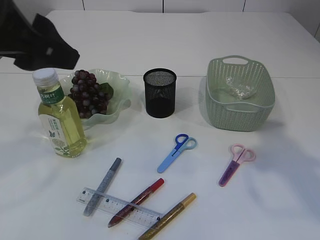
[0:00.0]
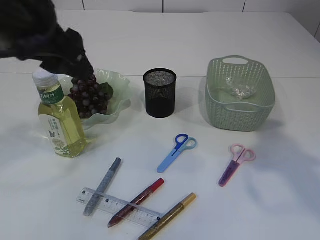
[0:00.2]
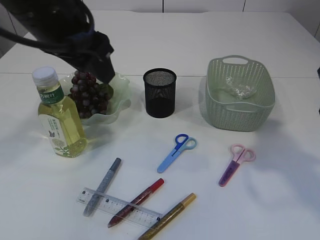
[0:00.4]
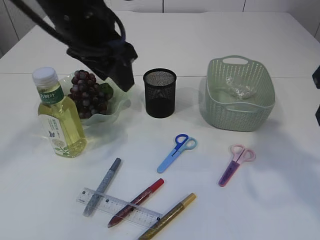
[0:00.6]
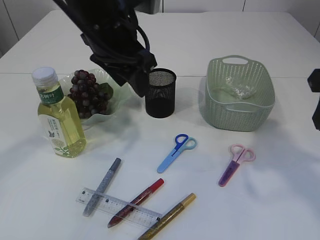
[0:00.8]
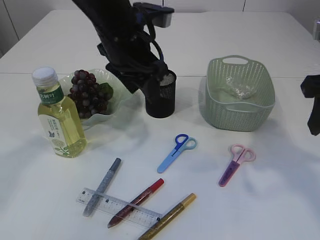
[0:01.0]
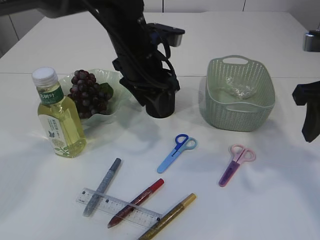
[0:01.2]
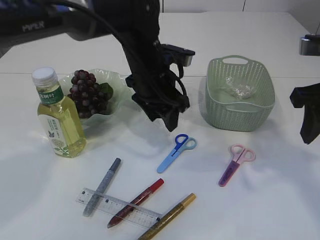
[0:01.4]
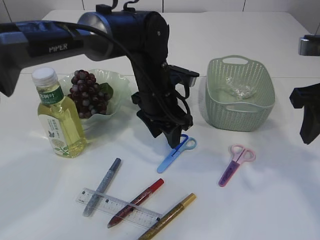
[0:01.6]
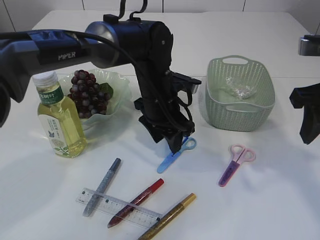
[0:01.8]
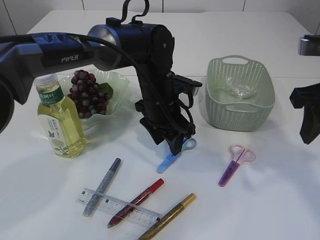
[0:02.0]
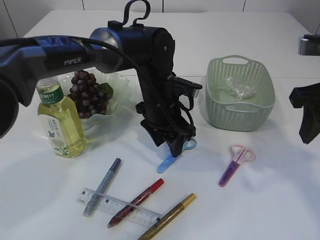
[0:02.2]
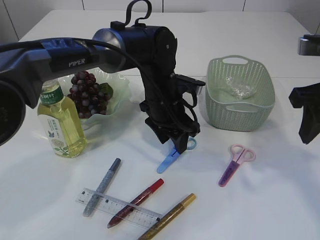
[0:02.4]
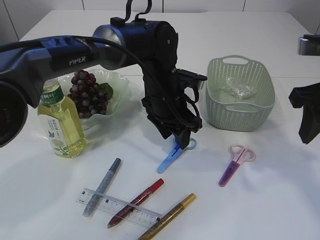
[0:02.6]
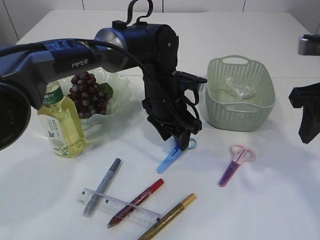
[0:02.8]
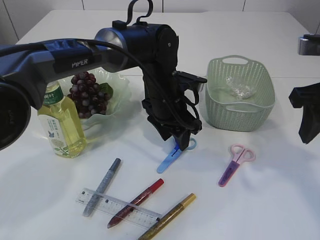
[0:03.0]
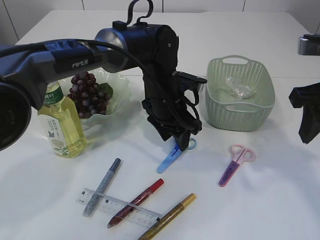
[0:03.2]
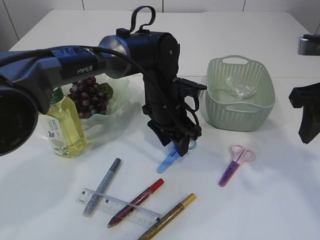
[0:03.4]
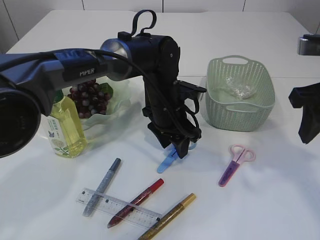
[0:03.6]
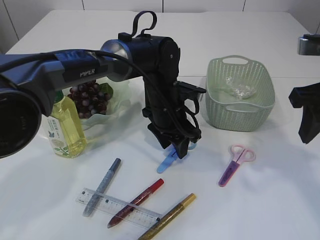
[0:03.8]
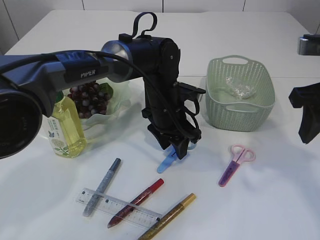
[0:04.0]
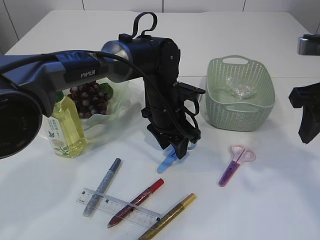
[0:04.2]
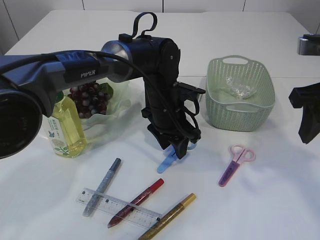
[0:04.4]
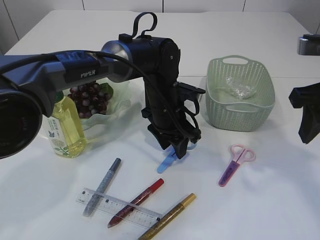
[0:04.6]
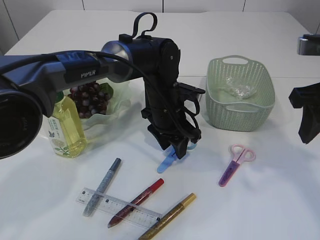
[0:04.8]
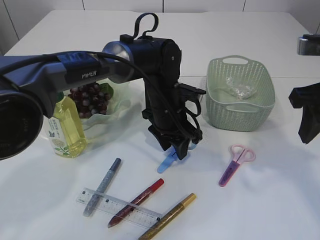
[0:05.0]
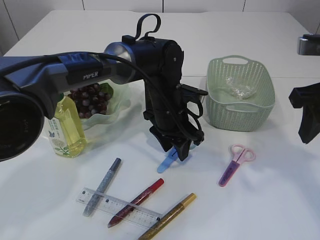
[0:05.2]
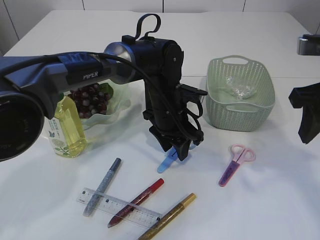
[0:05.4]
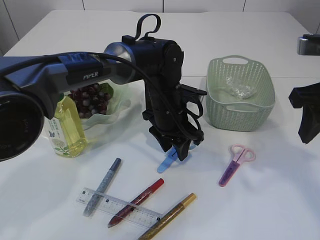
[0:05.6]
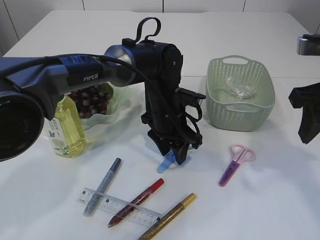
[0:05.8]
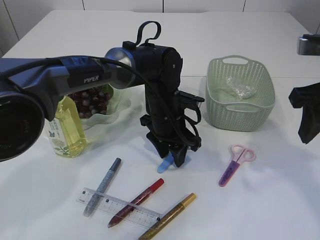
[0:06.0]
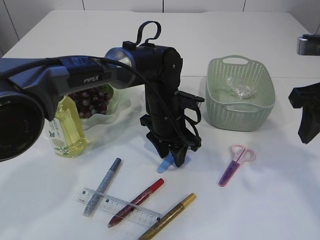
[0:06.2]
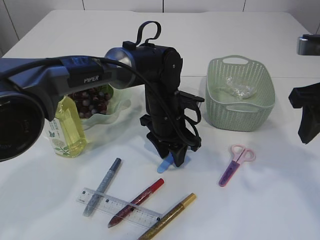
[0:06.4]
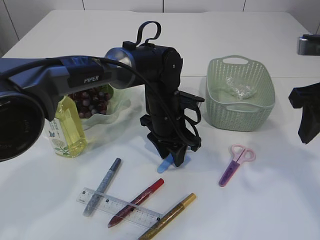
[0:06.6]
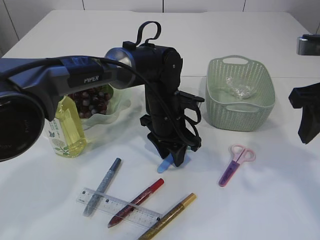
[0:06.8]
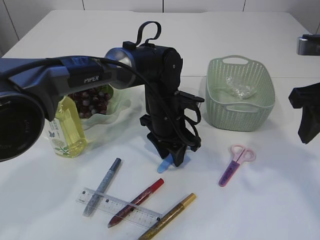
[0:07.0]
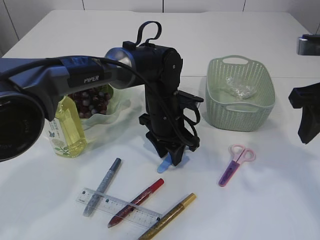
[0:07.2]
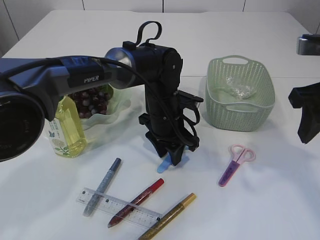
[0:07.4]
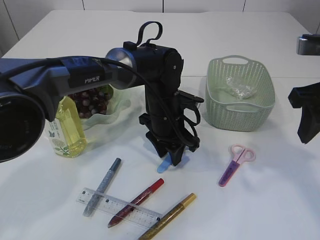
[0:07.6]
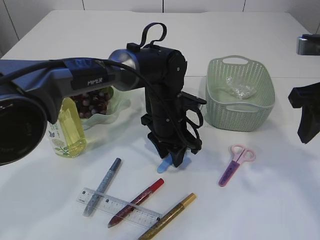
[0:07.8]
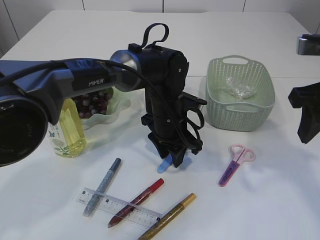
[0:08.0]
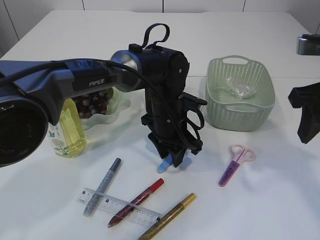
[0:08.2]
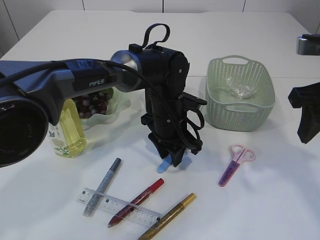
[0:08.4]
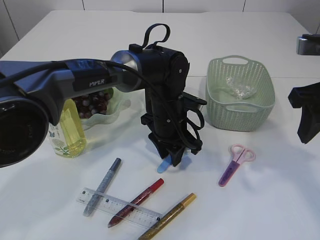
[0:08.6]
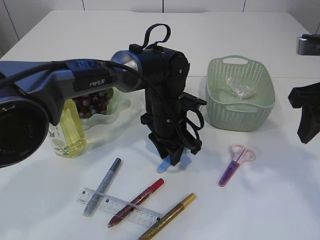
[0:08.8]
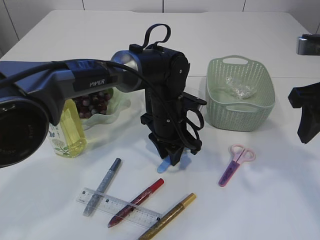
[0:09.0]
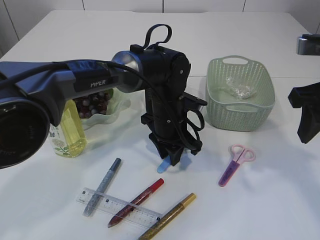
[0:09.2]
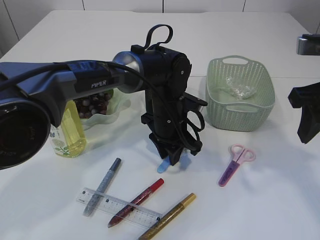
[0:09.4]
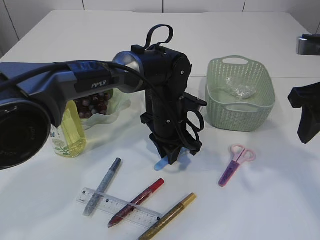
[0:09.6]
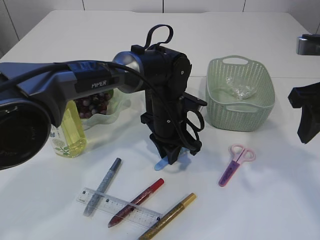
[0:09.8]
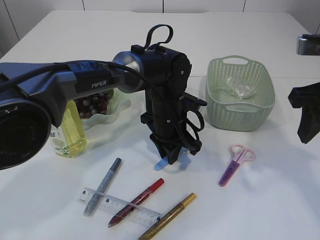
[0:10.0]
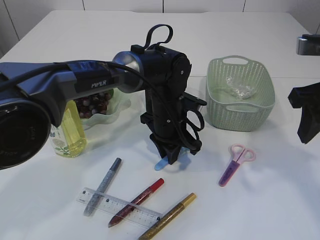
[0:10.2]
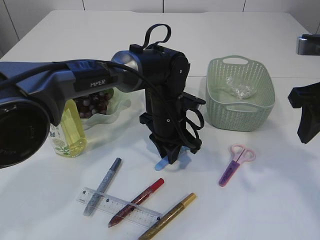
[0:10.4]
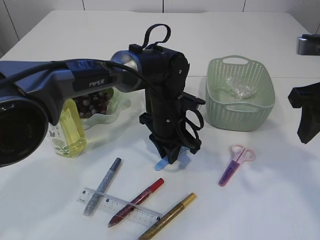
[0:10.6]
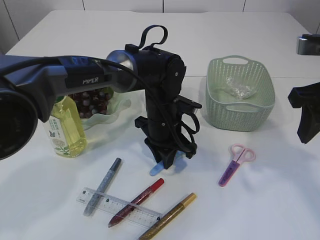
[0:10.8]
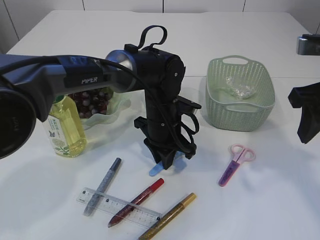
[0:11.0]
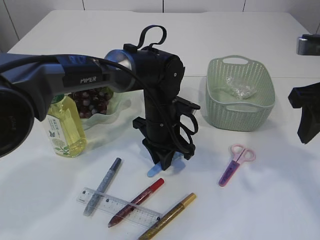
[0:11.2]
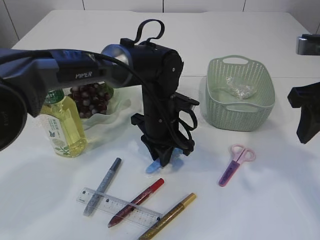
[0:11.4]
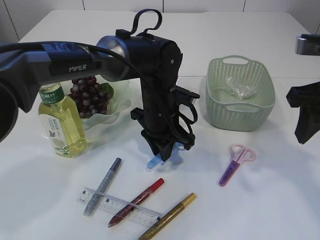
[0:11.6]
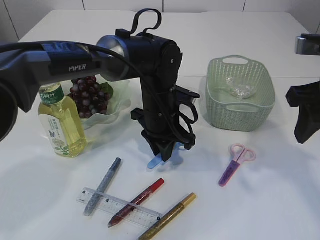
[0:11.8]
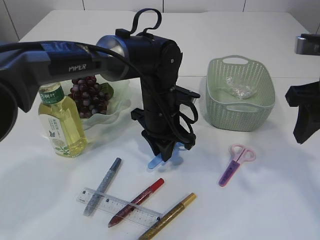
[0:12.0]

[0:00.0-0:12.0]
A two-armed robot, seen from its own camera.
0:00.0 to 0:01.6: The right gripper goes some 5 cm downward; the left gripper moves downward, to the right and forward, roughly 30 cm.
0:01.6 to 0:04.4: There are only small adjustments of the grippers.
0:04.4 to 0:06.0: There are only small adjustments of the grippers.
0:06.0 to 0:07.6: Neither gripper changes place.
0:07.6 to 0:09.0: Both grippers stay put.
0:09.0 to 0:10.4: Both grippers stay about where they are.
0:10.4 to 0:12.0: The grippers make only small movements.

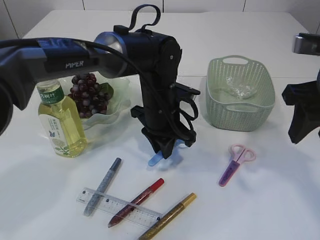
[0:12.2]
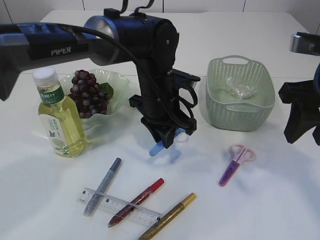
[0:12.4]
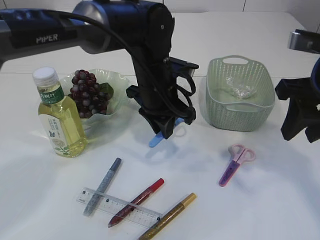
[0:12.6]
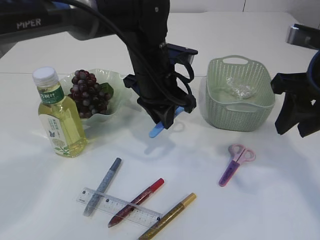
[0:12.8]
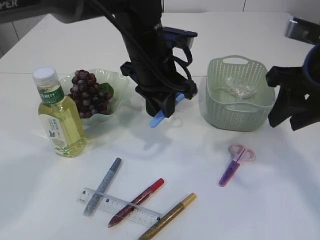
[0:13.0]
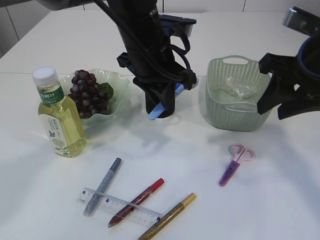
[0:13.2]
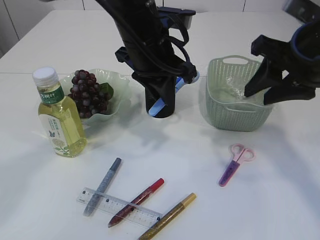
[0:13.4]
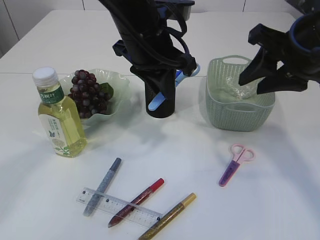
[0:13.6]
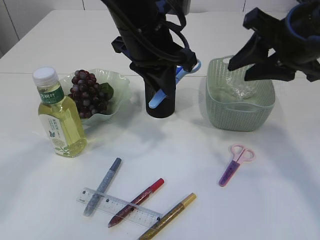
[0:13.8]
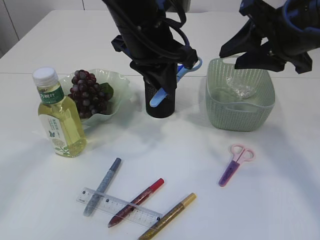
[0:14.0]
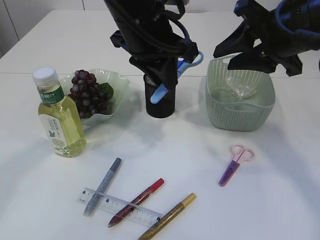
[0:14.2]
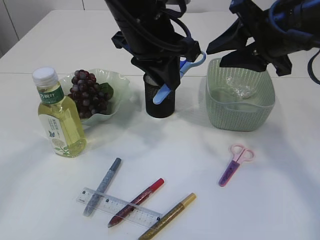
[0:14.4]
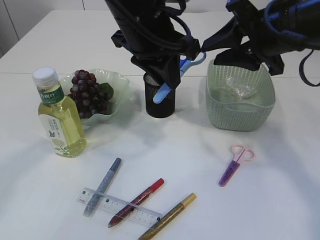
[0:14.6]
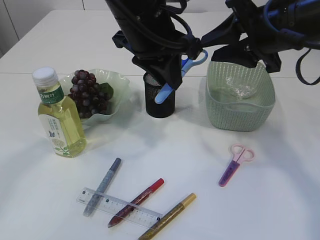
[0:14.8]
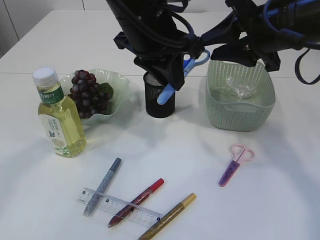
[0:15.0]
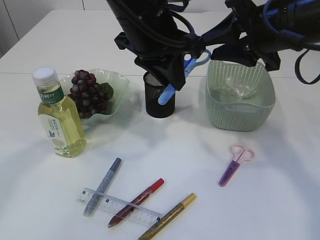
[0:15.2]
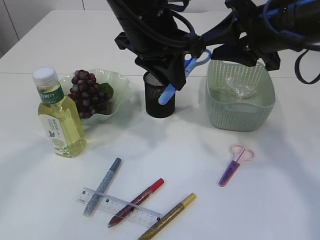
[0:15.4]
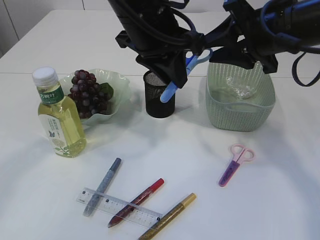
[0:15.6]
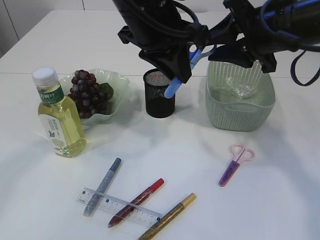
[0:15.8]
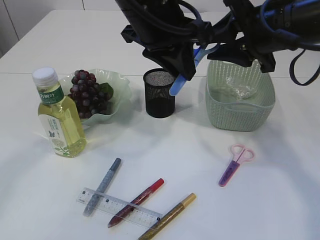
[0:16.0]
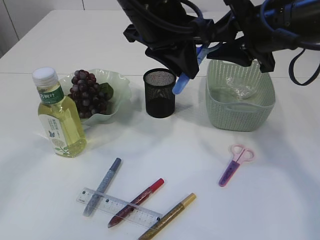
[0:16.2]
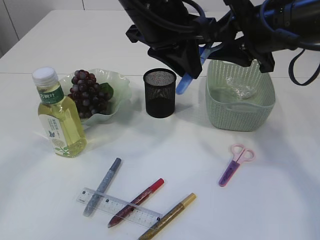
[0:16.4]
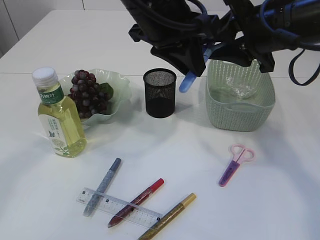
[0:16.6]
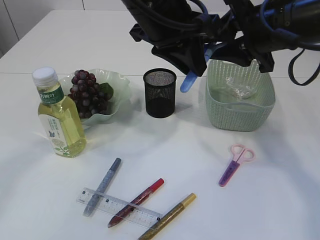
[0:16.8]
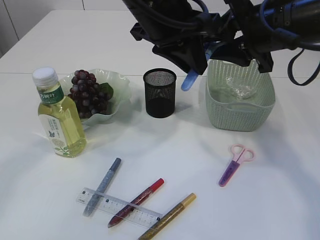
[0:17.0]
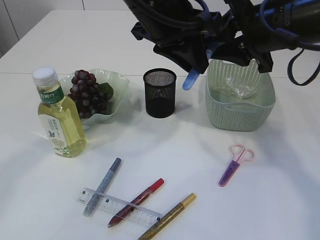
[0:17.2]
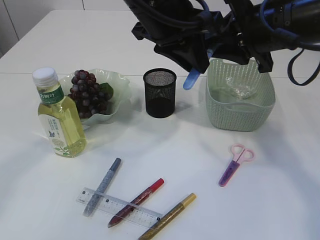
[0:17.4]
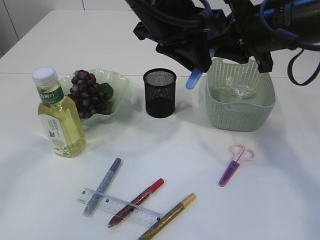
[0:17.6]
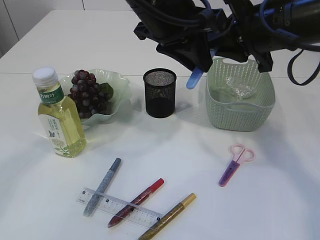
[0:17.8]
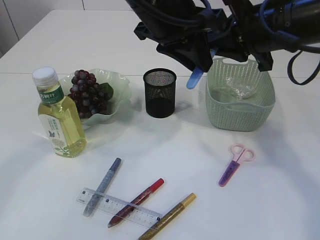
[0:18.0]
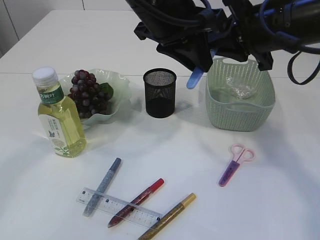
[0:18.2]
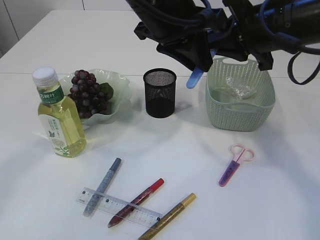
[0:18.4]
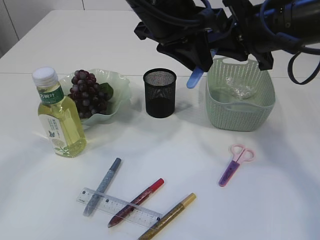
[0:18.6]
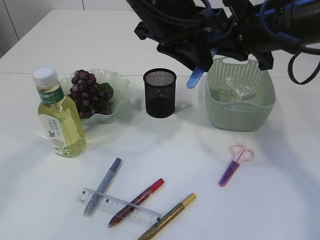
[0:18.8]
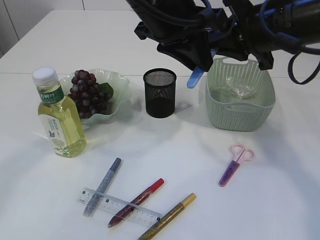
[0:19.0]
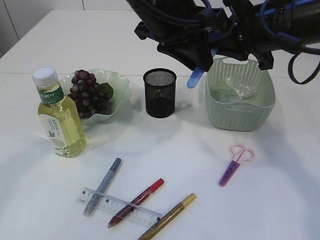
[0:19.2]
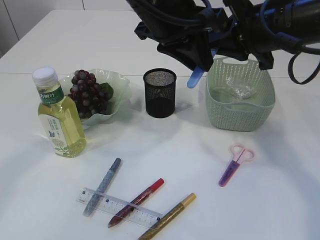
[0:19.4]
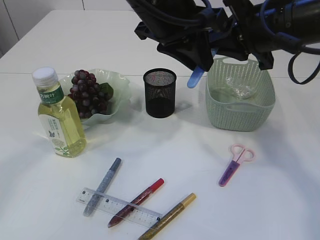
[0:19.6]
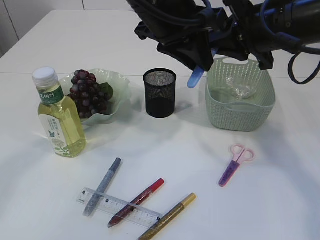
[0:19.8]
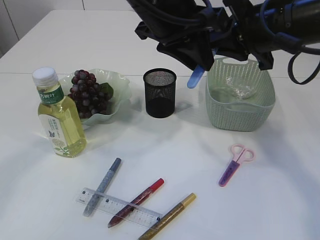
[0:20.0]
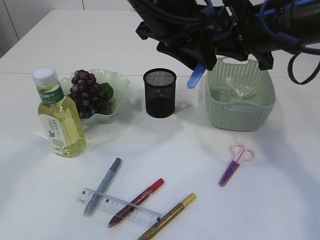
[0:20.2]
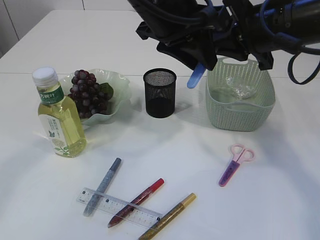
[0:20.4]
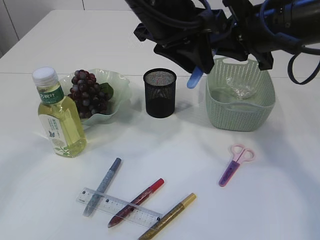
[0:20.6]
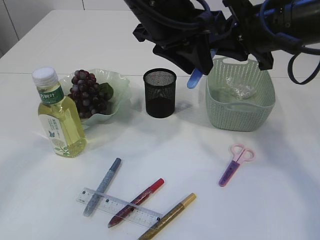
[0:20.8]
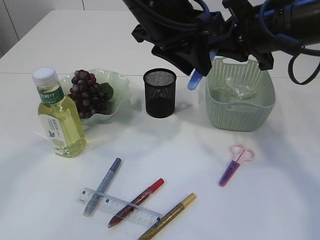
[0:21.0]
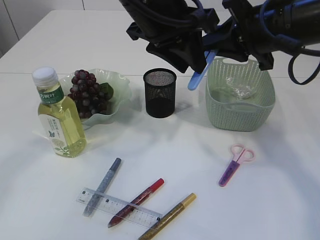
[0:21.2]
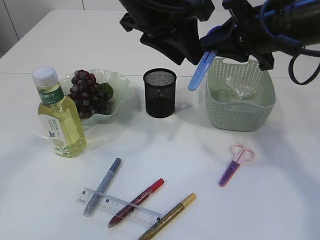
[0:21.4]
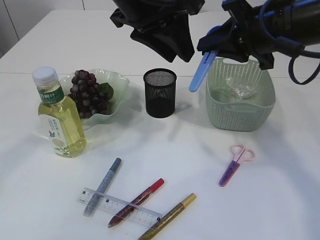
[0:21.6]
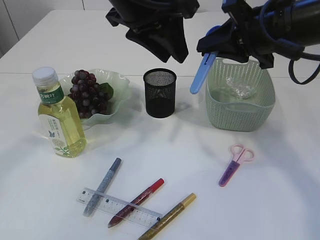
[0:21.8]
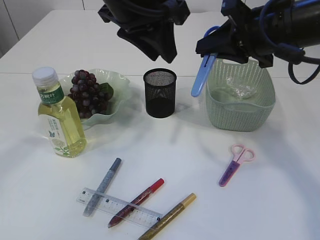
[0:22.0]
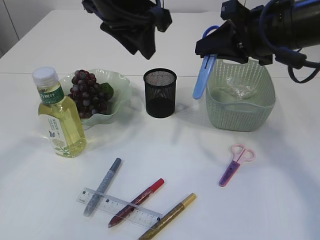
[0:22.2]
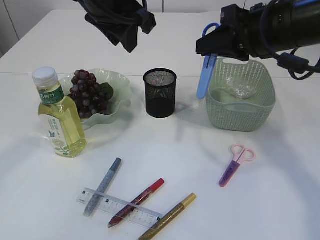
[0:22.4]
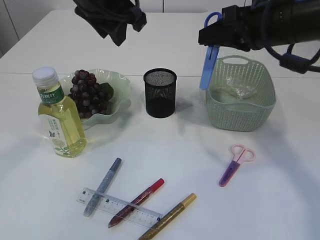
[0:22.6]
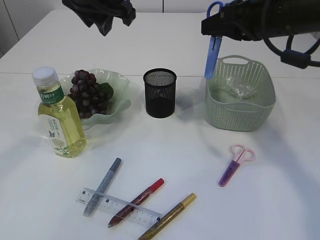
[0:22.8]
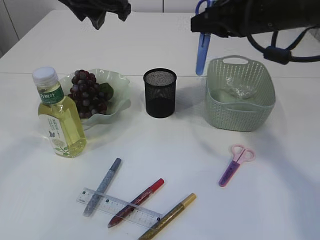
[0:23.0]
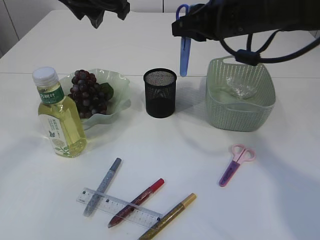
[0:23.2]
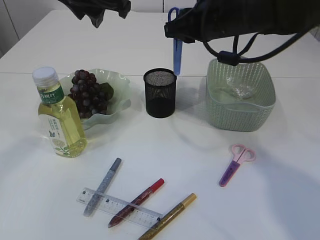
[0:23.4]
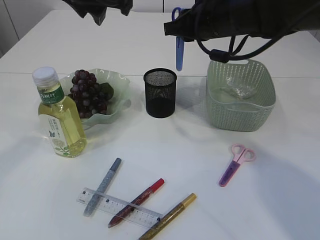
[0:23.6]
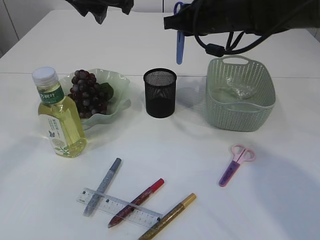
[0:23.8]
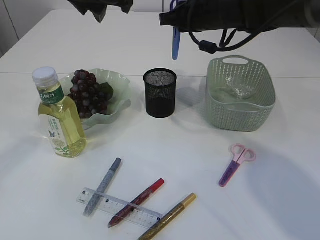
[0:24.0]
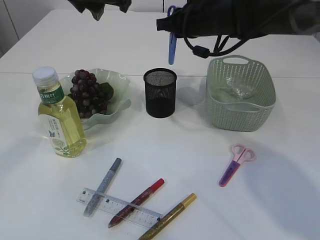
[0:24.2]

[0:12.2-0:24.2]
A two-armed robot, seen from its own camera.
Step, 0:12.4 to 0:21.8: Hand over the blue scissors.
0:12.2 to 0:13.8: The left gripper goes some 15 cm upward. The right gripper moves roughly 5 cm.
0:13.8 to 0:15.2: The grippers stay close to where they were, moving slightly.
0:15.2 to 0:16.6: The grippers stay close to where they were, moving slightly.
0:16.6 to 0:18.2: The right gripper closes up.
0:18.2 to 0:21.2: Both grippers stay about where they are.
0:21.2 to 0:22.6: The left gripper moves to the left, approximately 5 cm.
0:22.6 to 0:24.2: The right gripper heads forward and to the left, covering some 15 cm.
